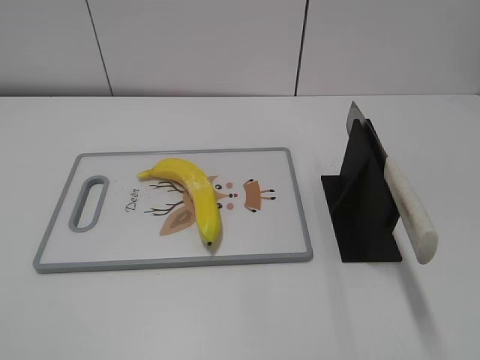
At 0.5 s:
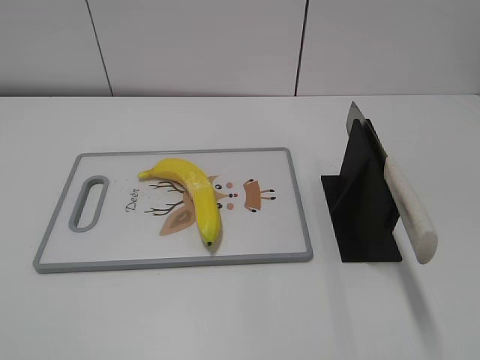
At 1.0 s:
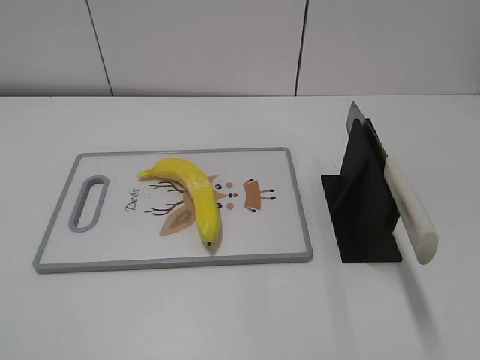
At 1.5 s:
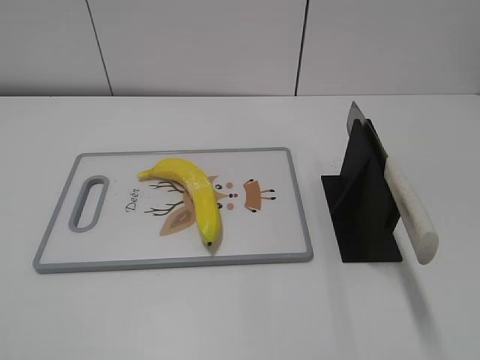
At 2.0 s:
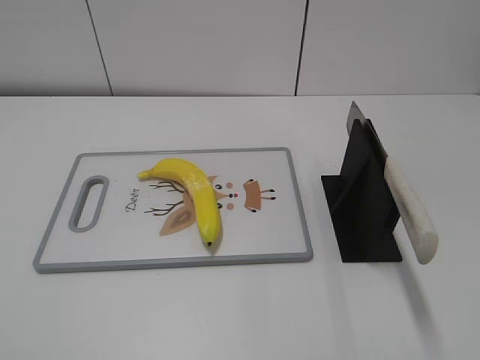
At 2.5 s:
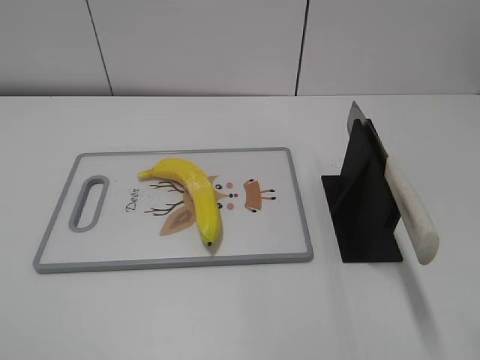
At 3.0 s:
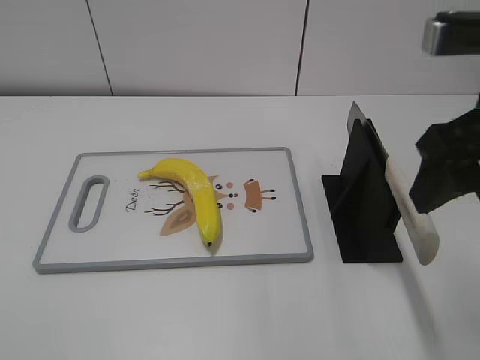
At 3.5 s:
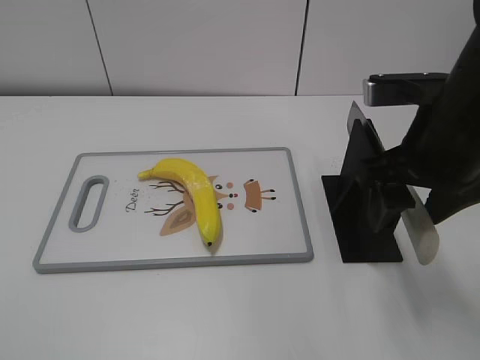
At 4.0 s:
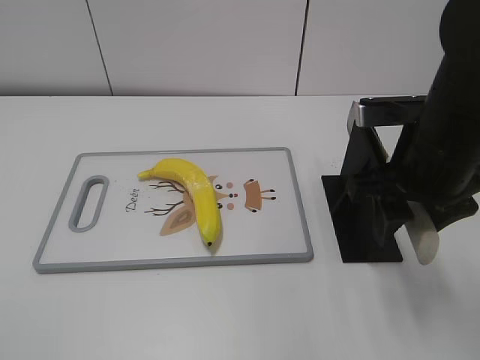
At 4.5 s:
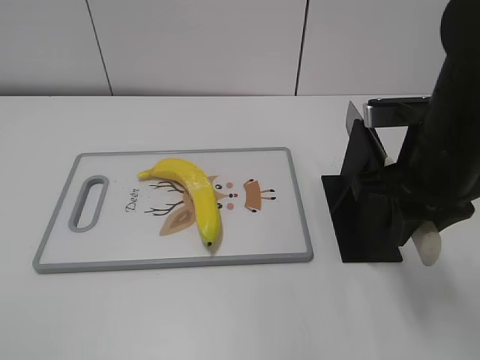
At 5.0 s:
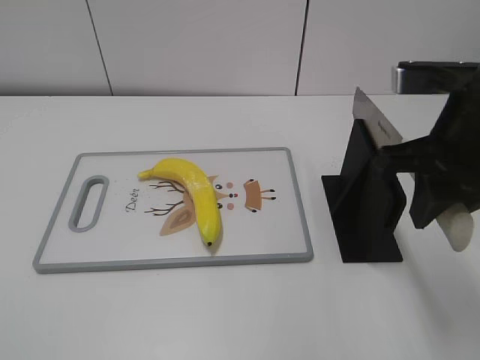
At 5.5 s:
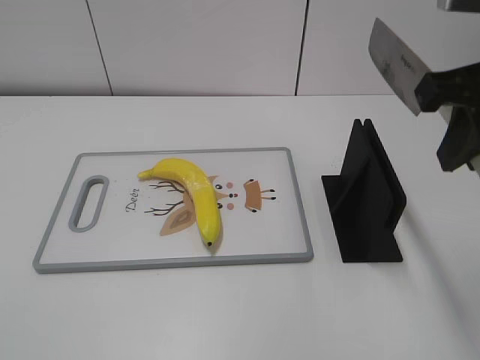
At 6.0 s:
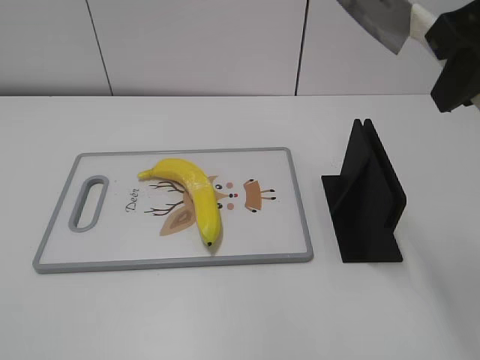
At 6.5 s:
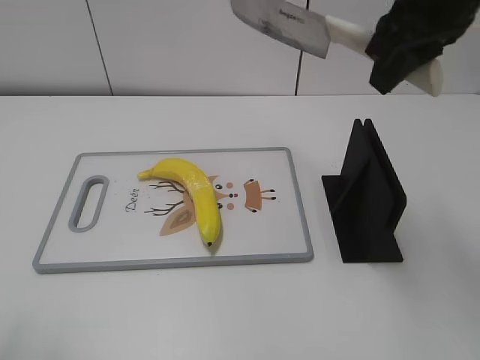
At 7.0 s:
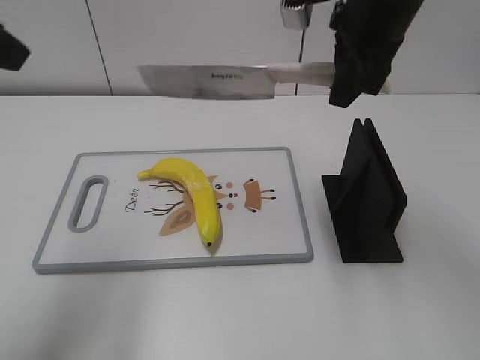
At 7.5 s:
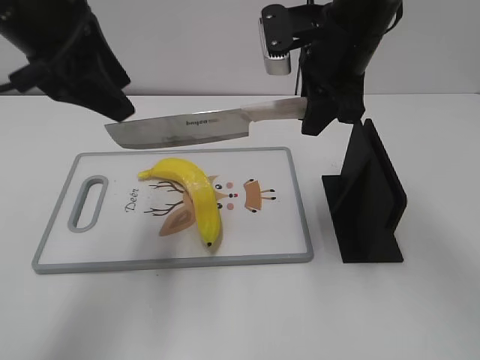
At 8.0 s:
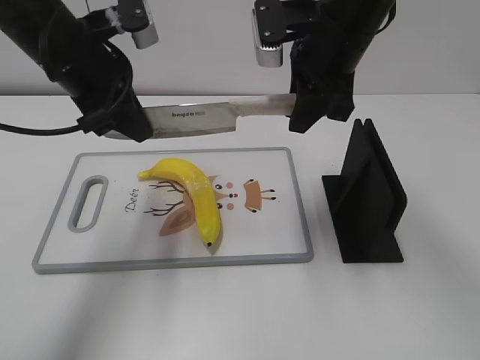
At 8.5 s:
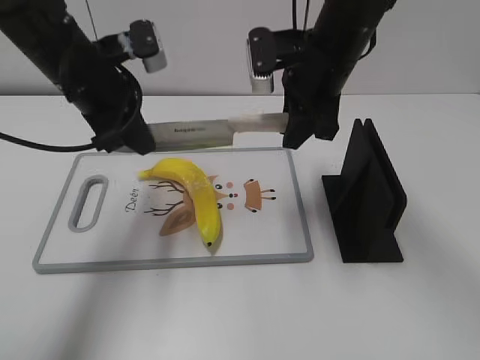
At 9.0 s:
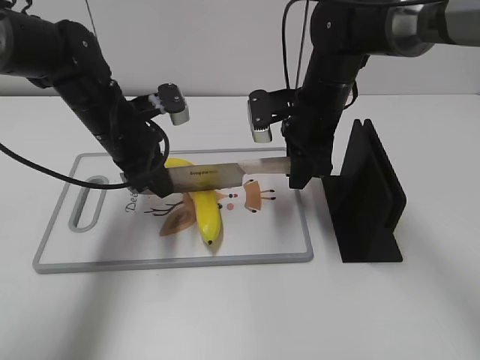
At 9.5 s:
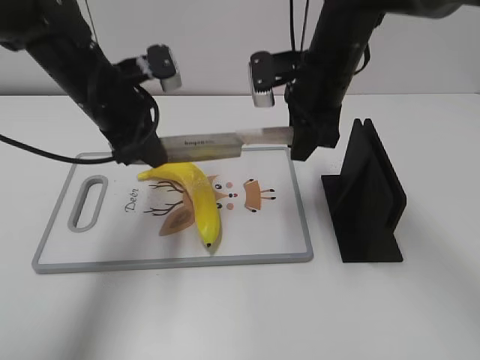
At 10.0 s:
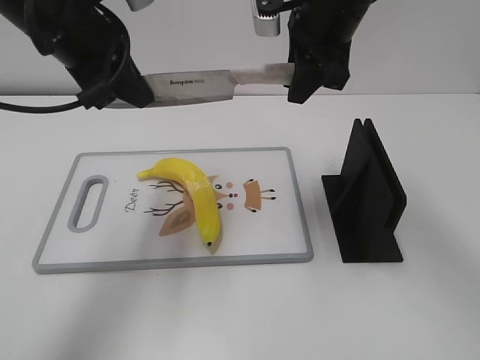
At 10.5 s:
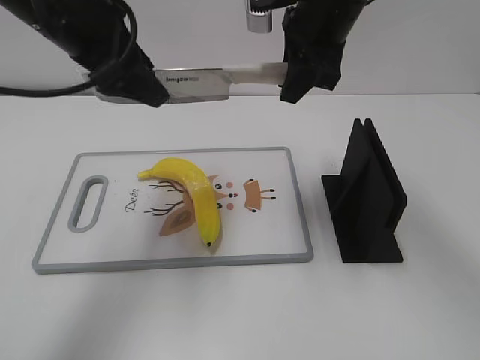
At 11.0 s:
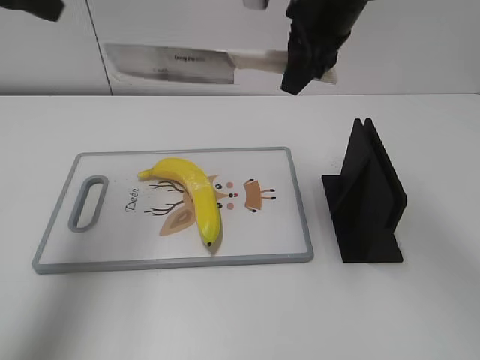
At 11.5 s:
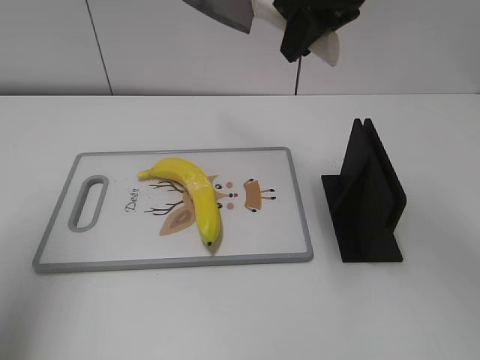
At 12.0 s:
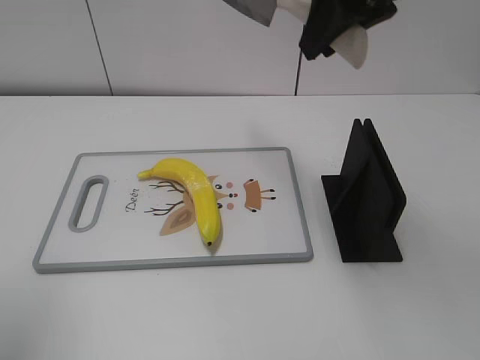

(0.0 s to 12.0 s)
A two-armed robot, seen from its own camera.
Task of the whole recording: cut plastic banana.
Step, 0.0 s - 5.5 s: Grab the knife handle with your right hand.
Step, 6.0 s - 9.5 s: Lift the knife with your right hand.
2.0 s - 4.0 s: The right gripper shifts roughly 25 cm forward, to the left and downward.
4.0 s - 6.0 s: The right gripper shifts some 15 cm upward, and closes.
6.0 s - 8.0 s: The right gripper shifts approximately 20 cm forward, downward and to the left. Meanwhile the left gripper goes approximately 40 cm forward and to the right, and closes.
8.0 s - 10.0 s: The right gripper reaches roughly 10 cm downward, then returns. Meanwhile the left gripper goes downward and returns, approximately 10 cm each way, and closes.
10.0 s - 12.0 s: The left gripper travels backward, to the left and upward by roughly 25 cm, and opens. The right gripper shifts roughly 10 cm upward and backward.

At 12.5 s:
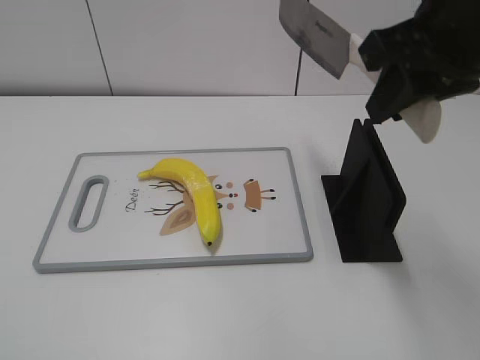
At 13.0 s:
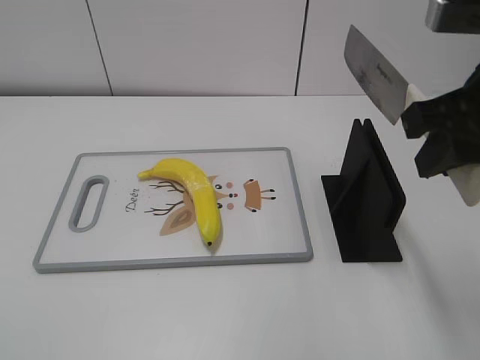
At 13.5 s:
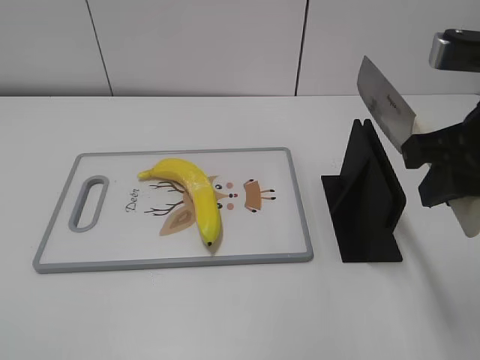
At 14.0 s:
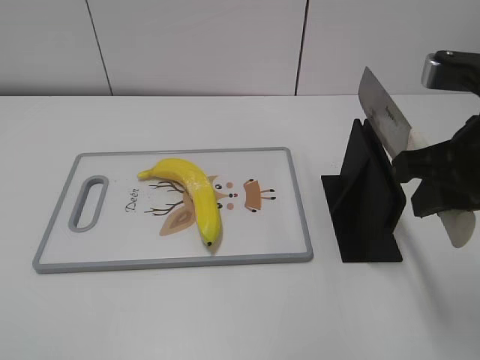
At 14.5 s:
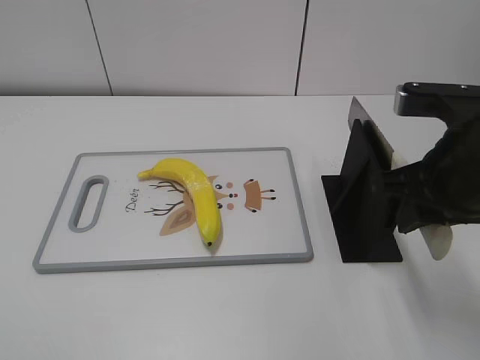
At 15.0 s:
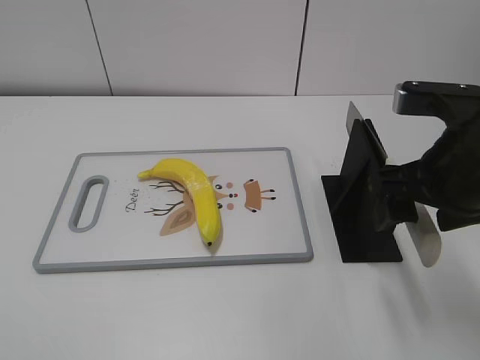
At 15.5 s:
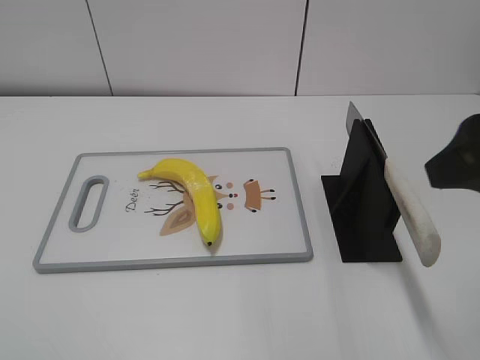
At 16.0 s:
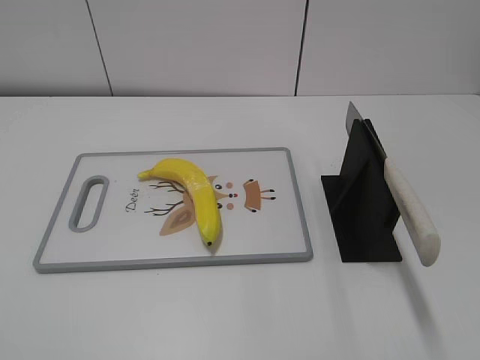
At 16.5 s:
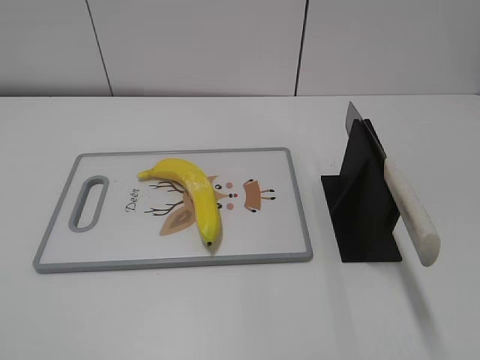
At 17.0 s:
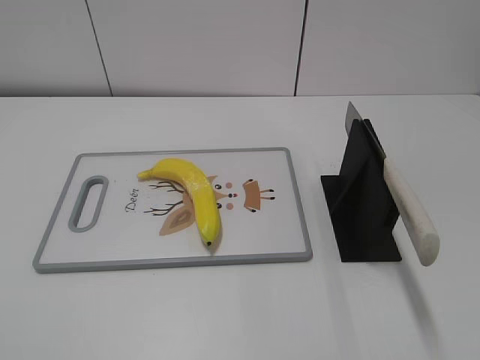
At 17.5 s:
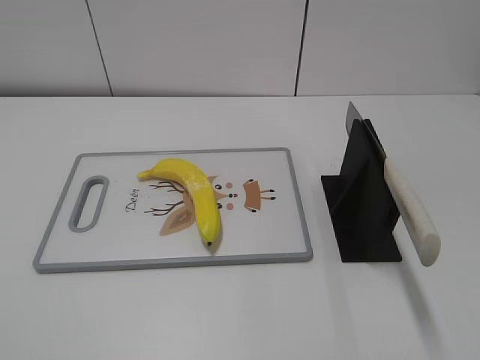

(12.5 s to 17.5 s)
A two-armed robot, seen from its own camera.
Task of the whole recording: cut plastic banana.
Step, 13.0 s - 17.5 s: Place the knife on the storage rack with your right hand.
12.5 s - 15.0 s: The right gripper heads downward, covering approximately 10 cm, and opens its fingers. The left gripper moves backward, some 5 cm.
15.0 s - 17.5 s: The right gripper moves backward and to the right, about 25 cm.
